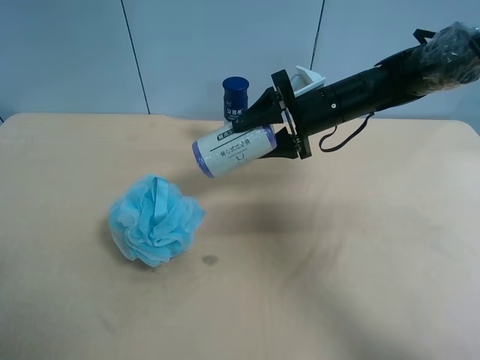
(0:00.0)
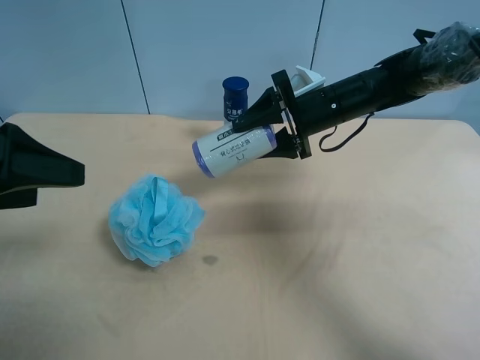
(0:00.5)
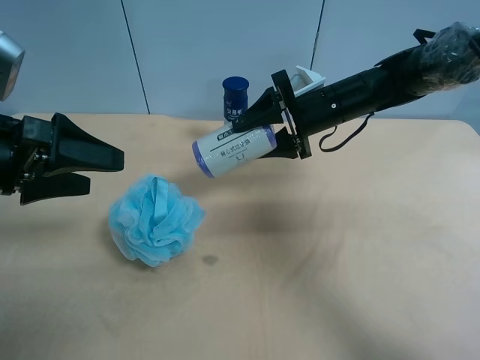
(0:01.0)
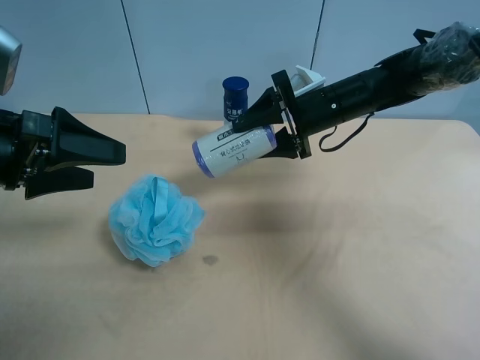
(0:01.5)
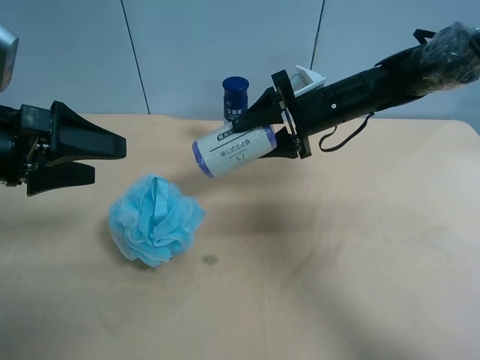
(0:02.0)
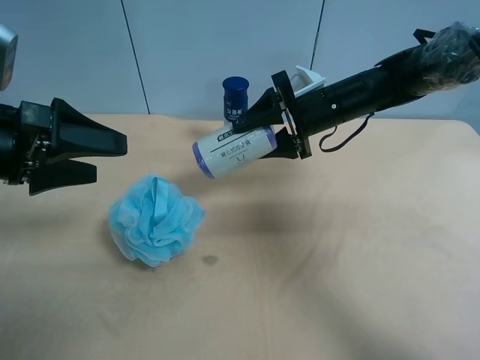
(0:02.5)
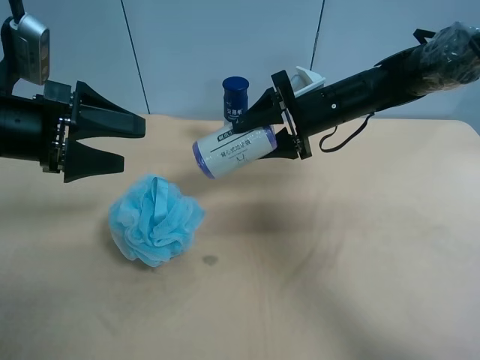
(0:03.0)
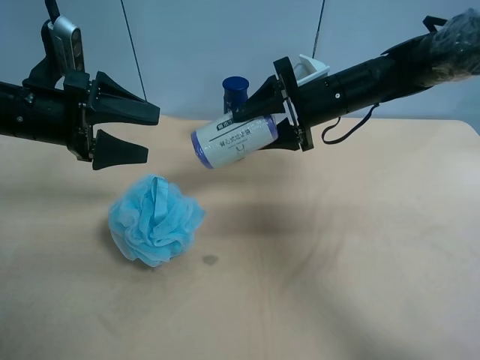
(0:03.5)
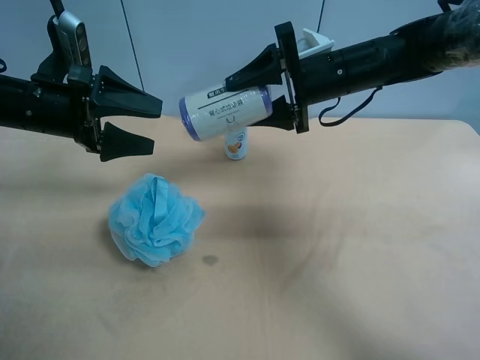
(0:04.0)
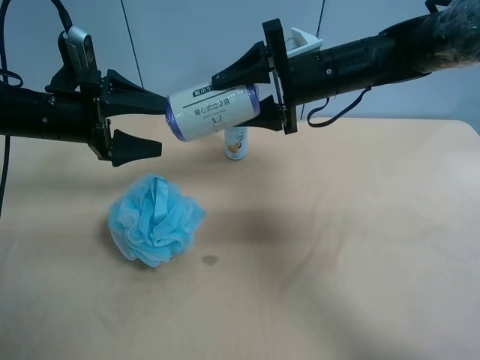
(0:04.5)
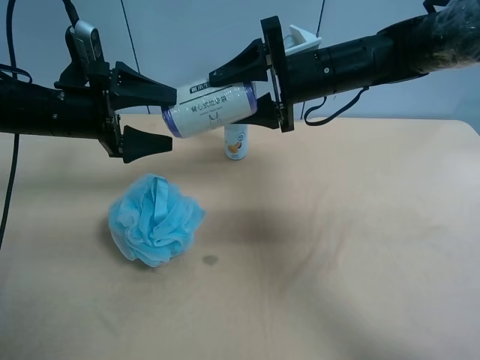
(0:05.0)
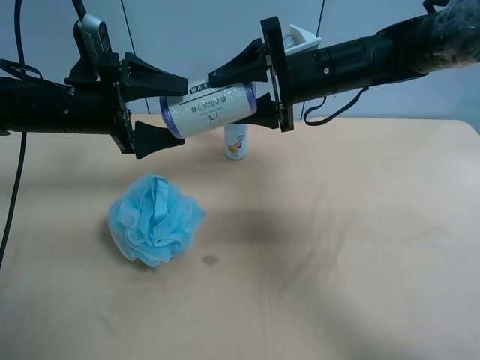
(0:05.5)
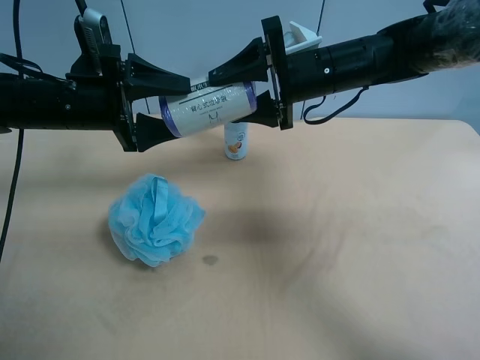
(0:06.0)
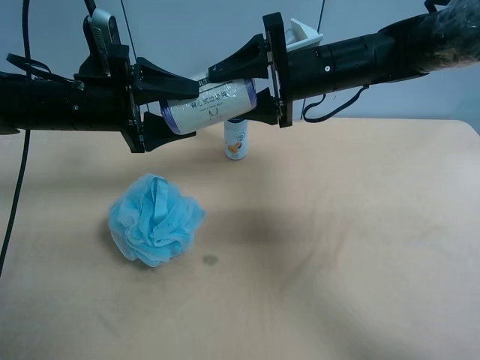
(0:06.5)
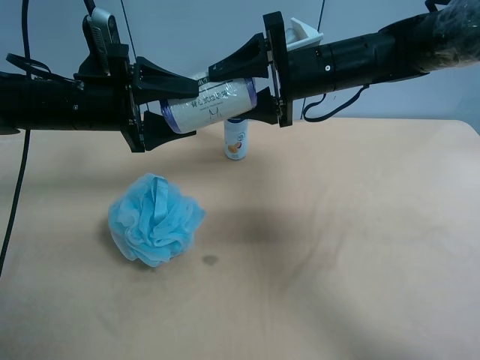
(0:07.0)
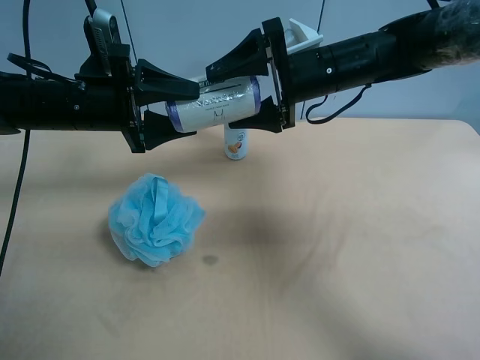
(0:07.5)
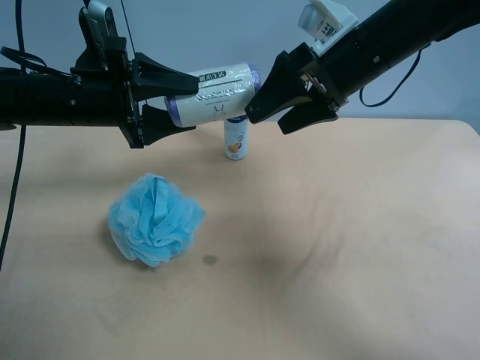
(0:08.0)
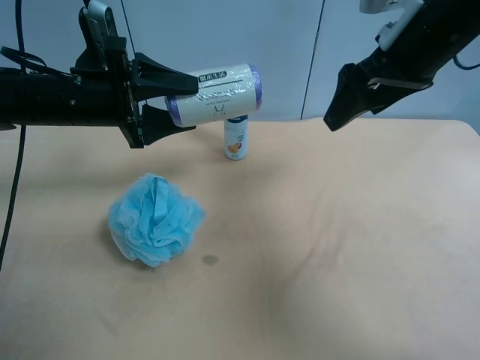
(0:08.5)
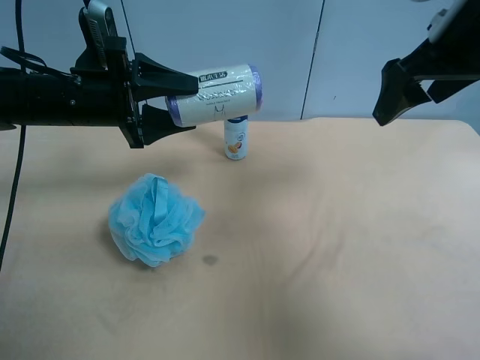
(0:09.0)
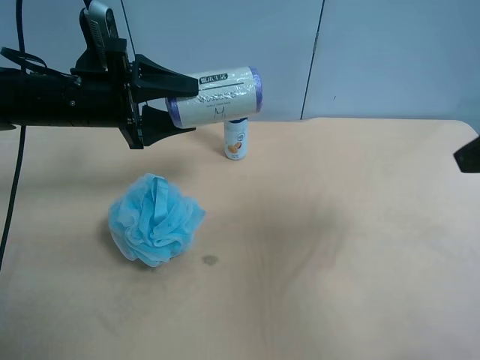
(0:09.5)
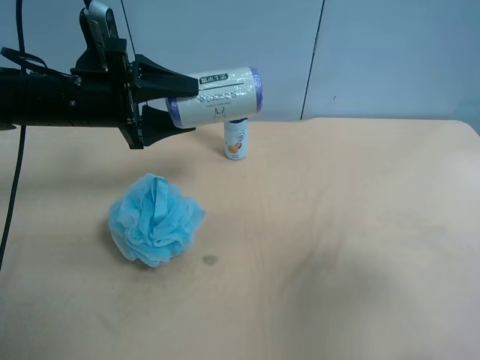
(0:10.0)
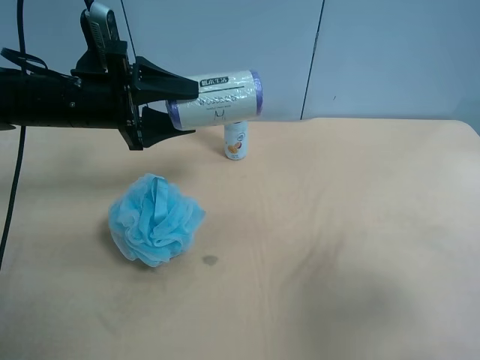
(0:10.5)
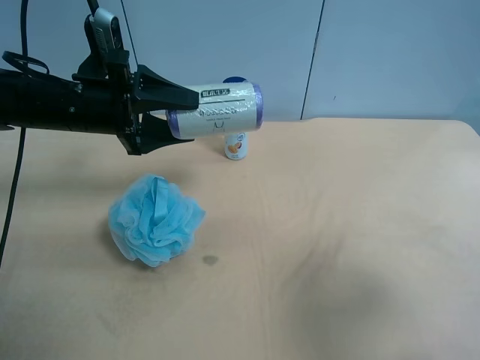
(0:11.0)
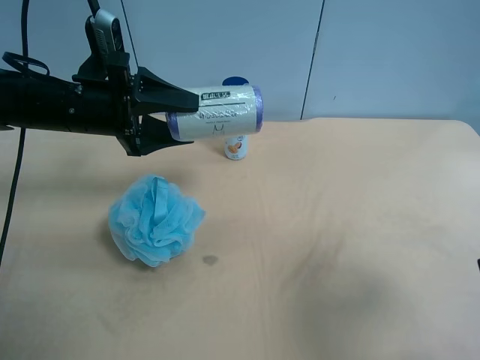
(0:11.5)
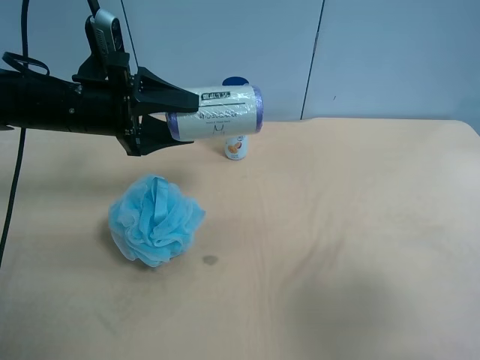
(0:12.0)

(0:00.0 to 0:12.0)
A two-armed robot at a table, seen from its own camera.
Task of the whole recording: use the right gripper to pick up the item and transfer it from the right gripper to the left gripper.
0:00.0 - 0:02.0: The left gripper moves forward and downward, some 15 cm.
0:02.0 - 0:04.0: The left gripper heads forward, covering roughly 10 cm. The right gripper moves approximately 5 cm.
0:04.0 - 0:06.0: The left gripper closes its fingers.
0:06.0 - 0:08.0: The right gripper changes place by some 5 cm, and opens up.
0:08.0 - 0:10.0: The right gripper moves backward and to the right, roughly 30 cm.
0:10.0 - 0:12.0: The grippers stay close to where they were, moving slightly.

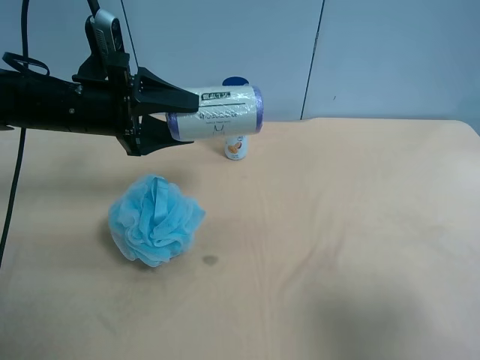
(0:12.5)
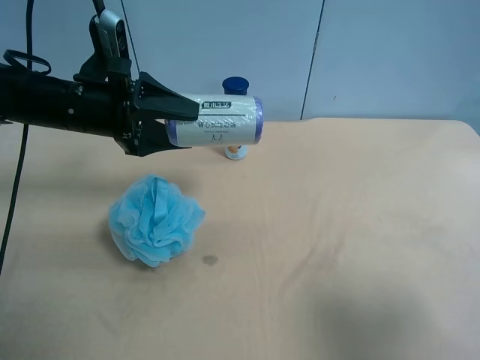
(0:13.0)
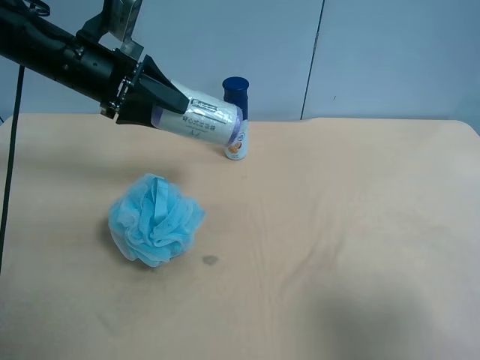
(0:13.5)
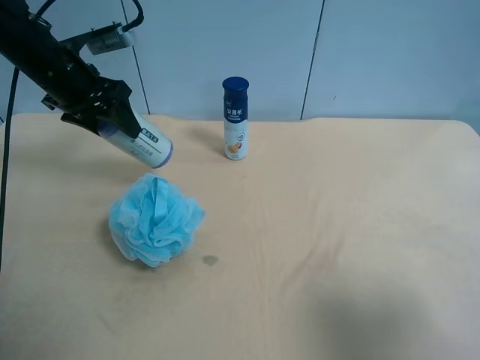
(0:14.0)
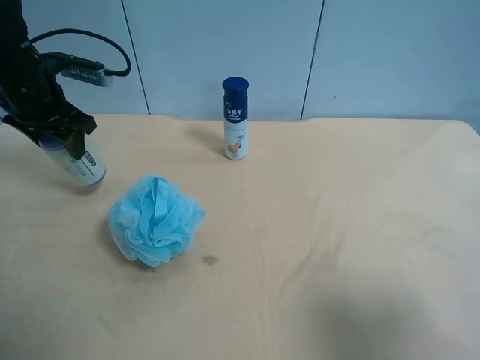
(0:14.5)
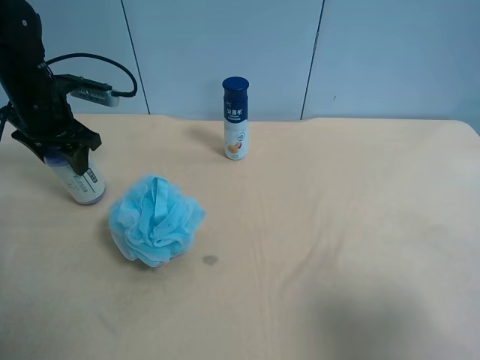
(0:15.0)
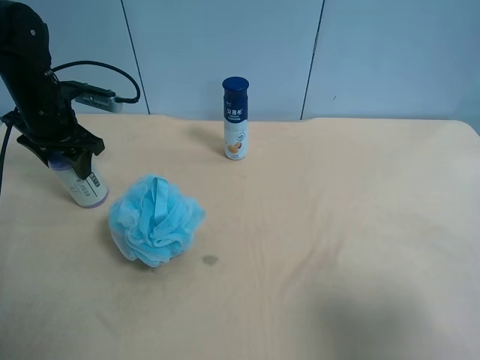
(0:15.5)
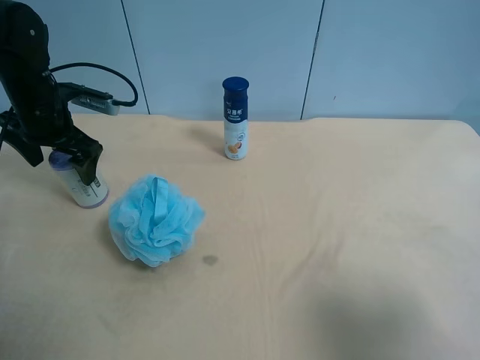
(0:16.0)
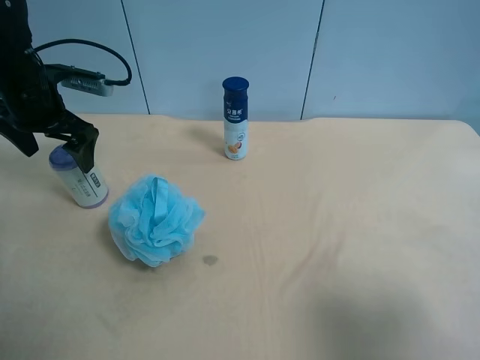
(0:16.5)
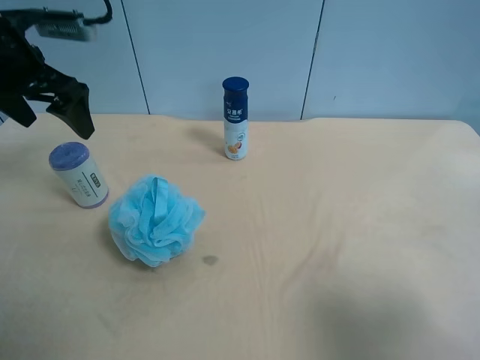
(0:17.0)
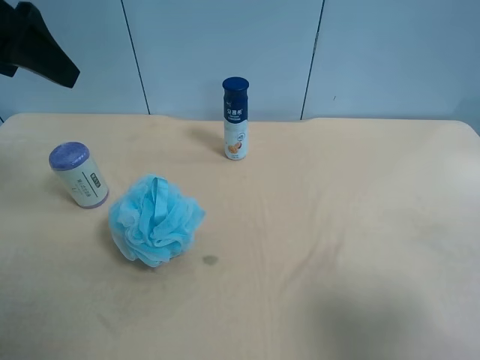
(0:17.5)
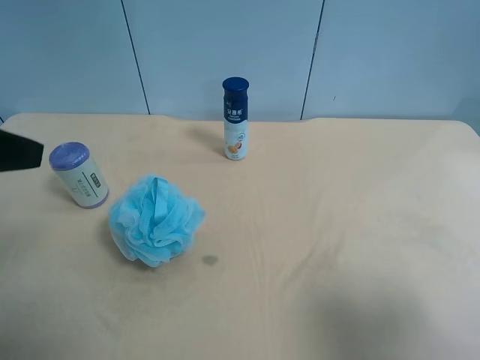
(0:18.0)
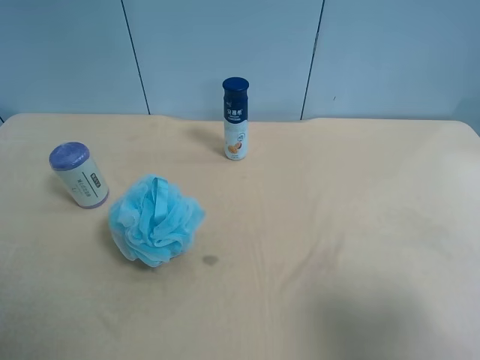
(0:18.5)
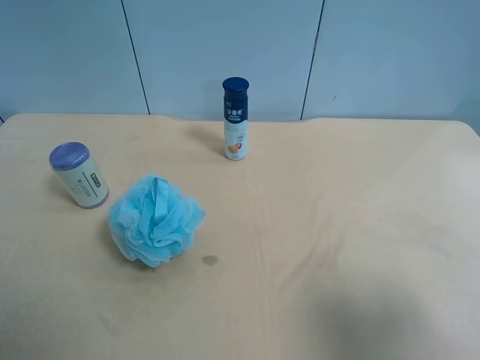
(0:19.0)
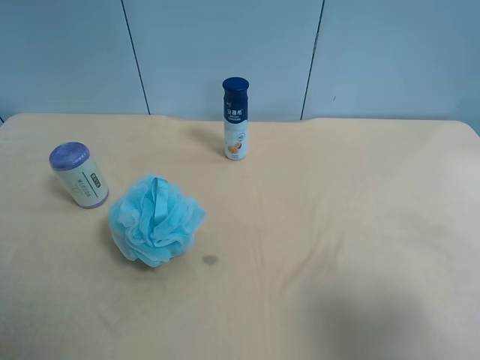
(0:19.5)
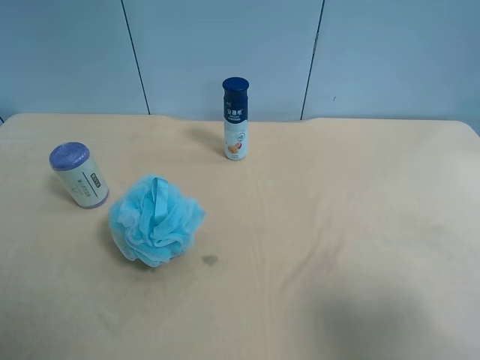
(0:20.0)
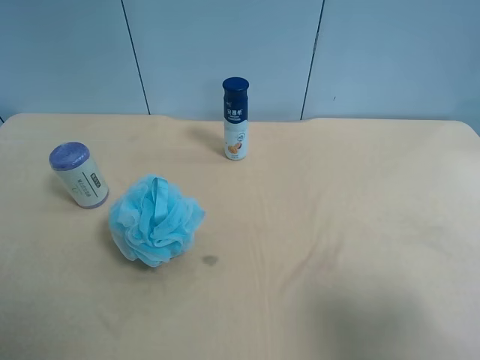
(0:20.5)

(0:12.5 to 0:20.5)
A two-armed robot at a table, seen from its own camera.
Task of the whole recording: use the right gripper to pick up the item and transfer it from the right gripper to the left gripper.
0:12.5 - 0:14.5: The left gripper is displaced to the left and forward by approximately 10 cm.
0:14.5 - 0:16.5: The left gripper opens up.
0:16.5 - 0:18.5: The left gripper goes some 35 cm backward.
